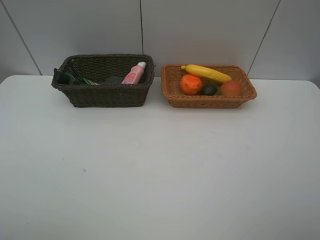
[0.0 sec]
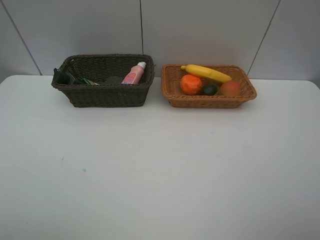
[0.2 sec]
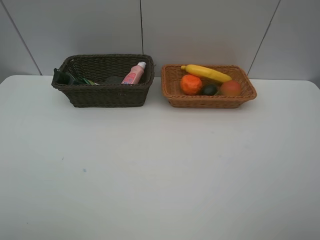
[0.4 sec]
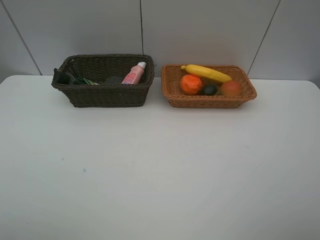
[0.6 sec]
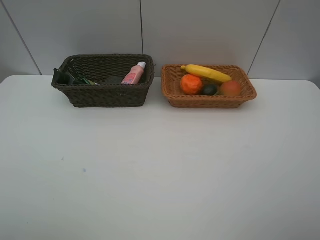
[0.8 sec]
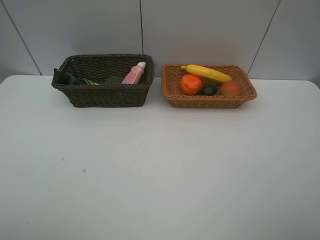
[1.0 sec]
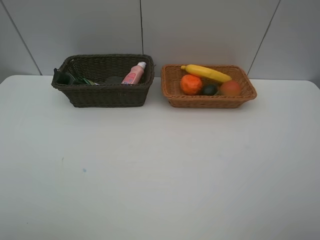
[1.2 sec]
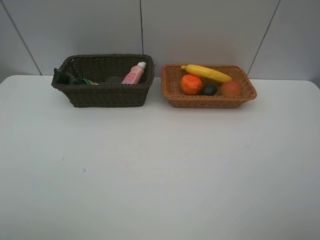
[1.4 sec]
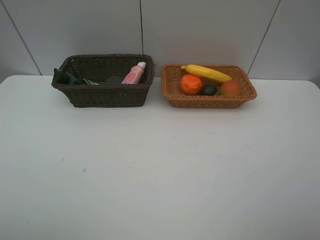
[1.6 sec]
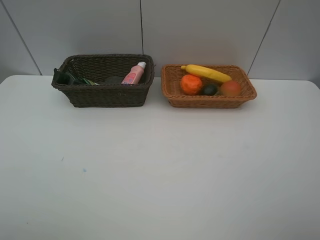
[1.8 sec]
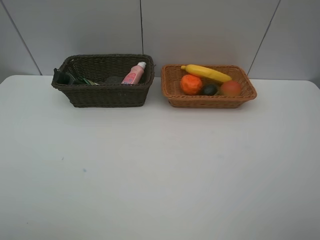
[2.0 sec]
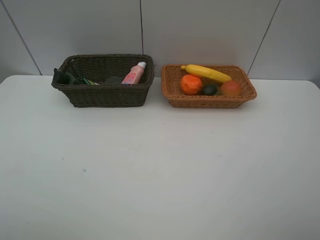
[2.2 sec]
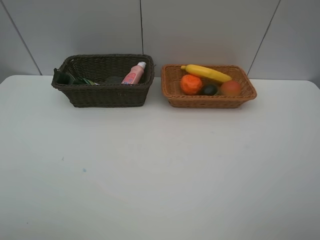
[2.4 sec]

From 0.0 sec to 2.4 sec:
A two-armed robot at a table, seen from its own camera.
Task of the whole recording: Place multiple objects separately in different baskets.
From 1.2 sec to 2.4 sec: The two grippers keep their place.
